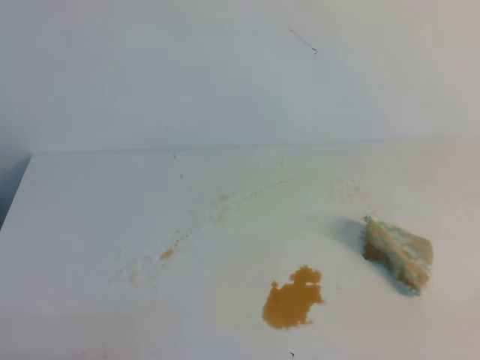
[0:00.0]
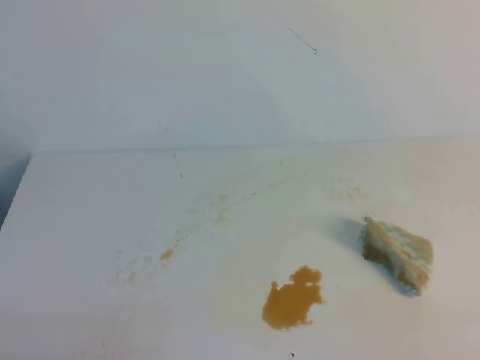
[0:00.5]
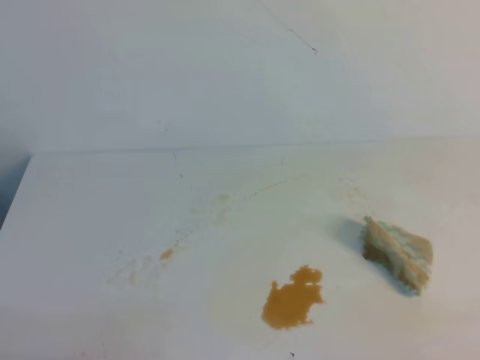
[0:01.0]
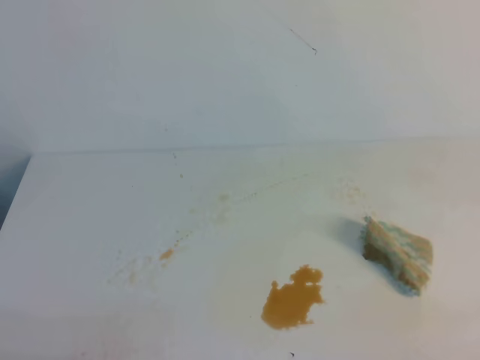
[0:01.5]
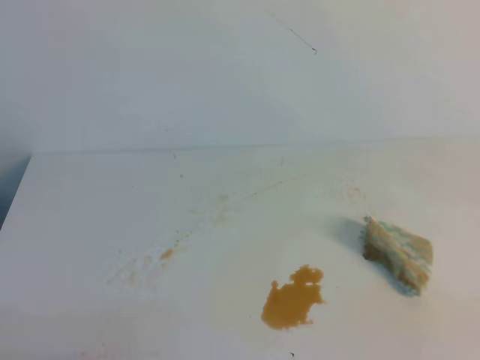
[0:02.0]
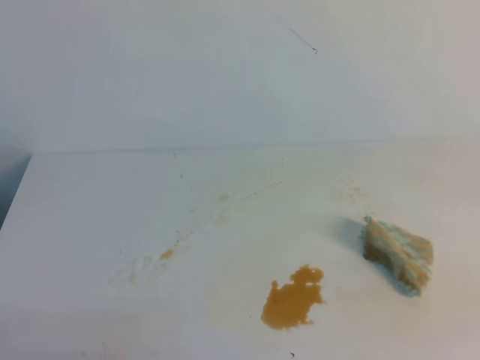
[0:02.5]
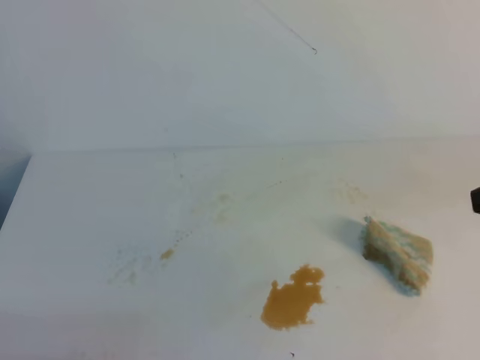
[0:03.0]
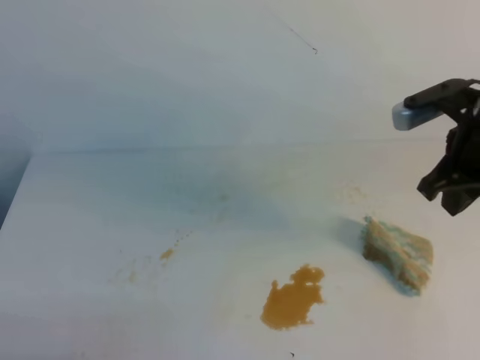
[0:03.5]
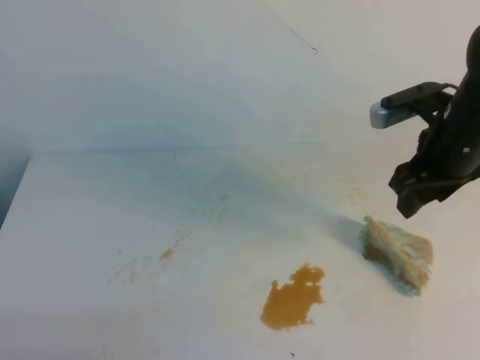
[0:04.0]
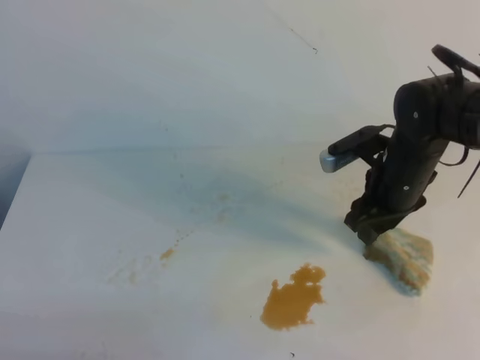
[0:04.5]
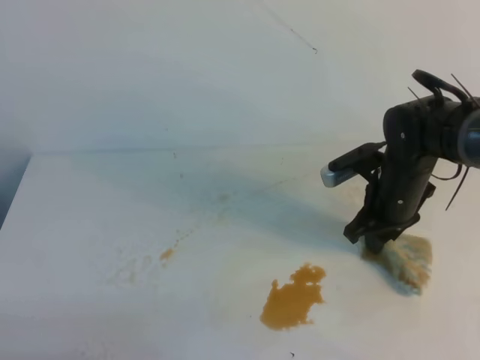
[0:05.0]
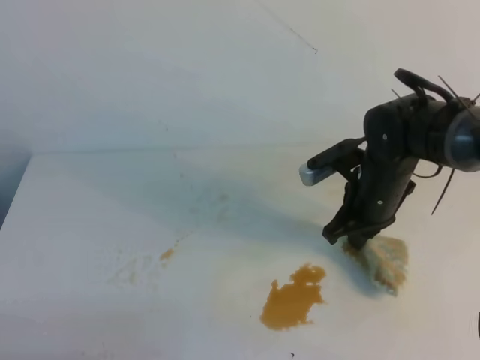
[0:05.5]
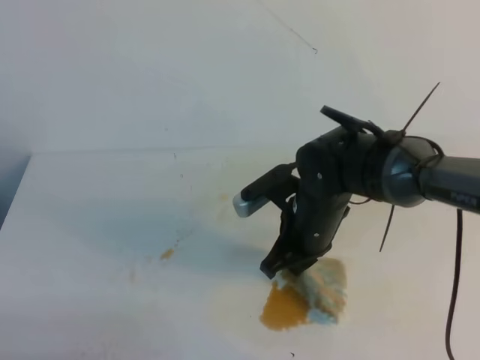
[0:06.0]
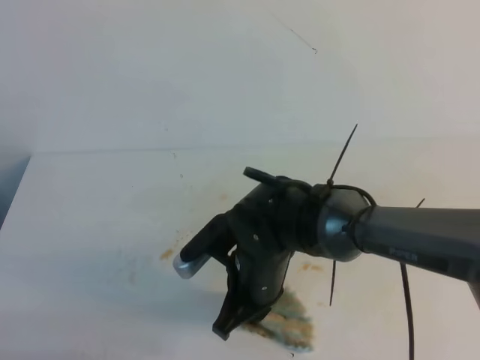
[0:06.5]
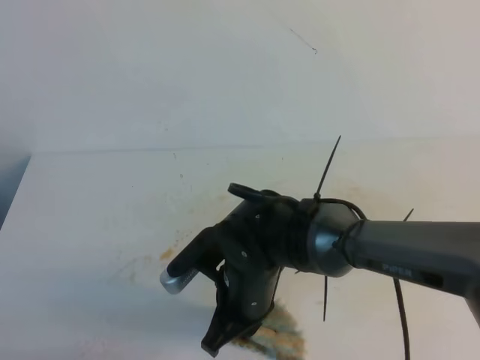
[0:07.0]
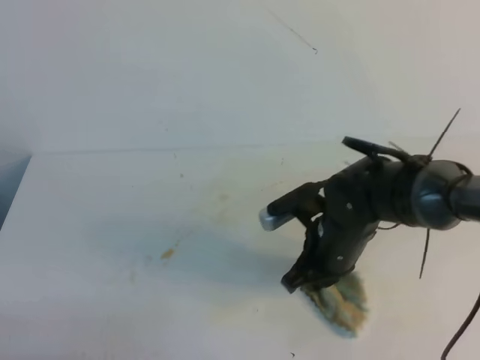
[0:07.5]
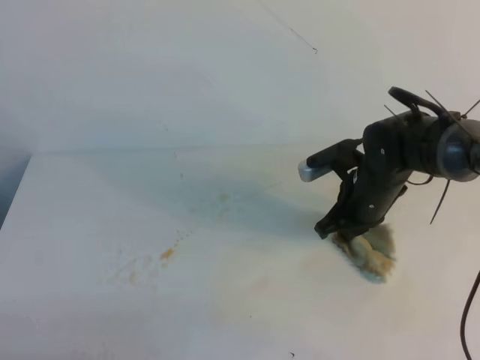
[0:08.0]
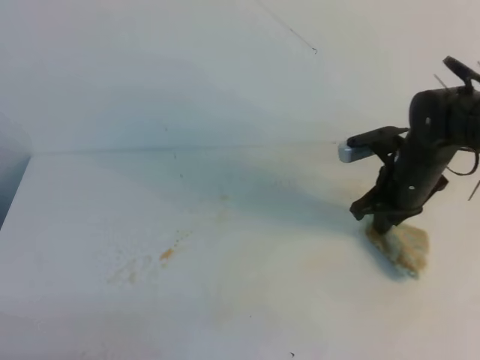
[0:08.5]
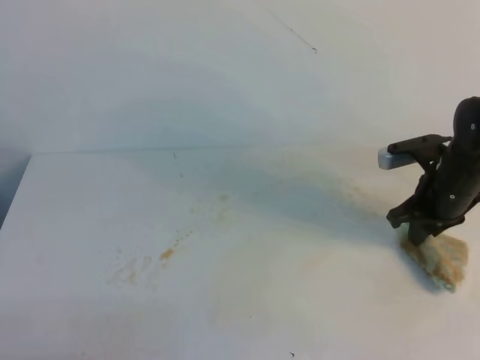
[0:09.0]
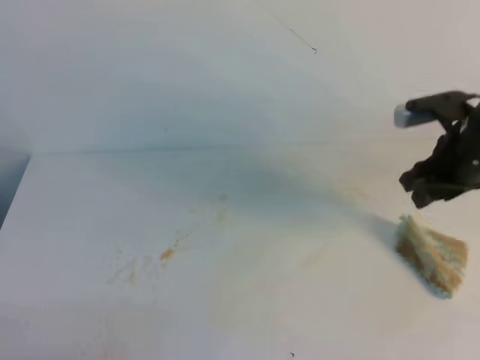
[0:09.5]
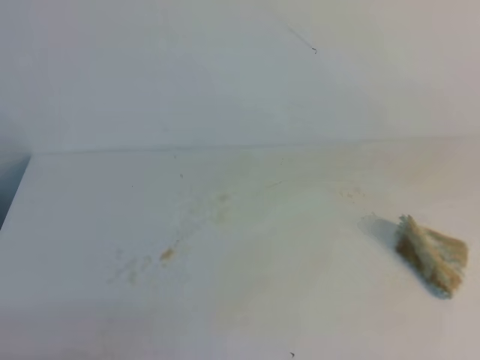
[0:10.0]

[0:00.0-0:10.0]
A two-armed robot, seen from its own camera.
0:02.0 to 0:04.0: The right gripper travels forward by approximately 30 cm, and opens.
0:04.0 to 0:06.0: The right gripper goes some 15 cm to the left and downward, and closes up.
0:06.0 to 0:08.0: The right gripper goes approximately 5 cm to the right.
0:08.0 to 0:10.0: The right gripper goes approximately 35 cm upward, backward and to the right, and opens, then closes again.

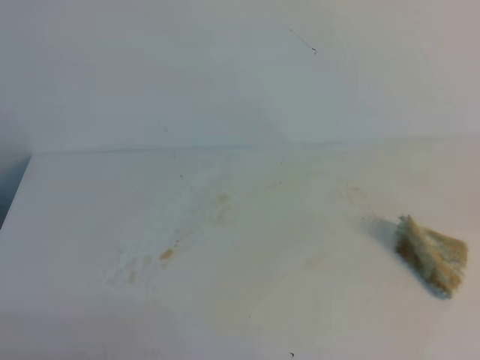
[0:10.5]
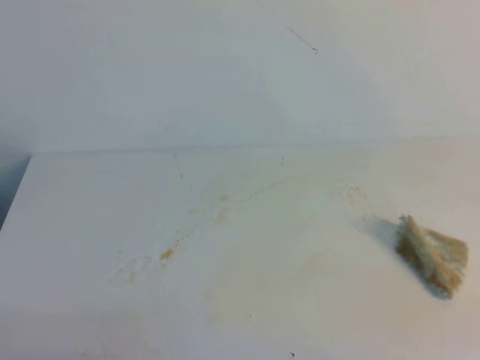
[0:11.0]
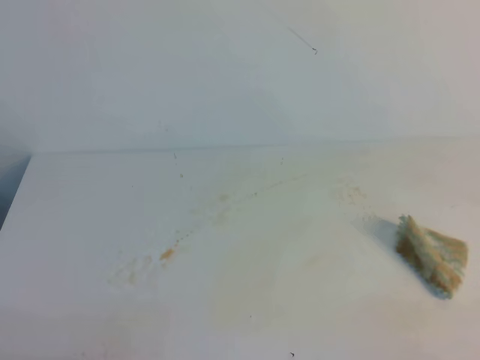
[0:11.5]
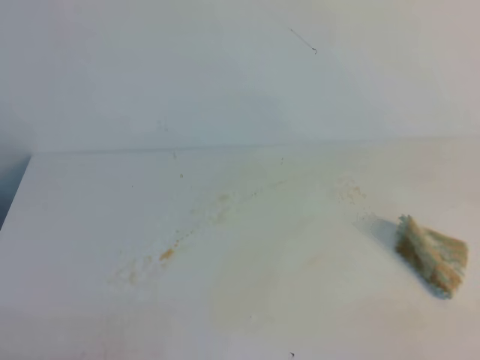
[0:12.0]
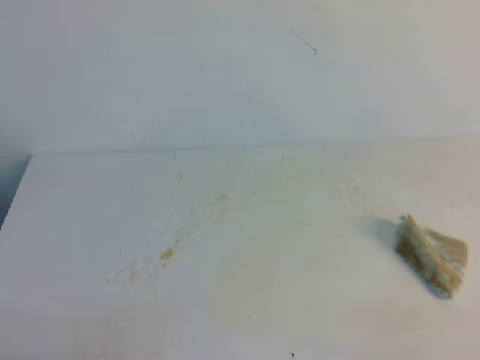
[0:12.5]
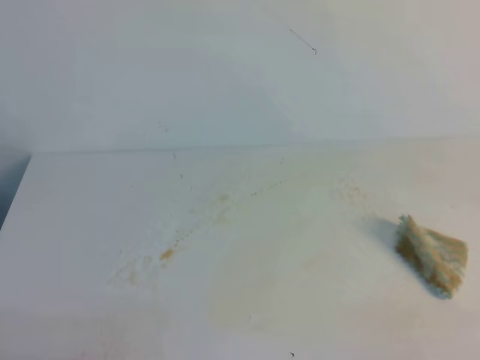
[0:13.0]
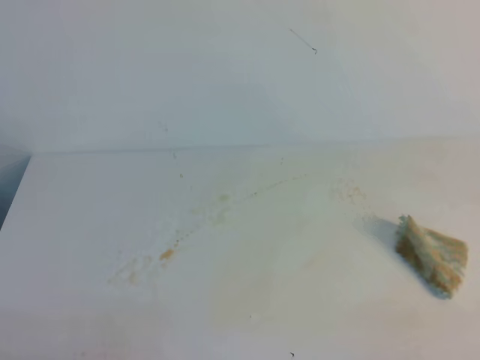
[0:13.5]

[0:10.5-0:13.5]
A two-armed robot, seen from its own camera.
0:12.0 to 0:13.5: Both grippers stay put.

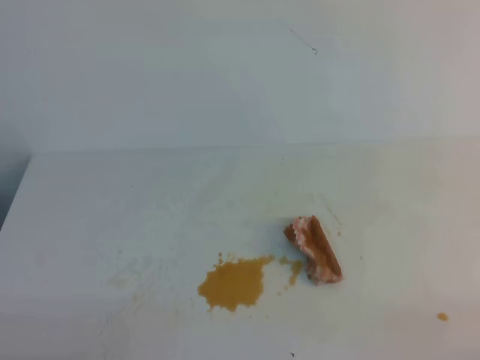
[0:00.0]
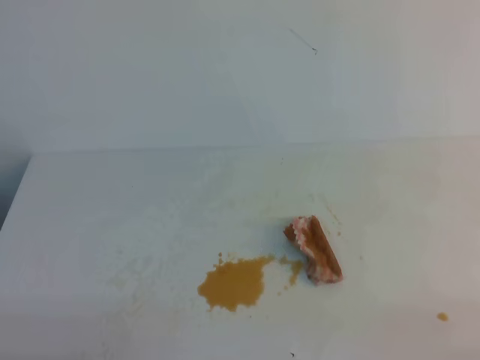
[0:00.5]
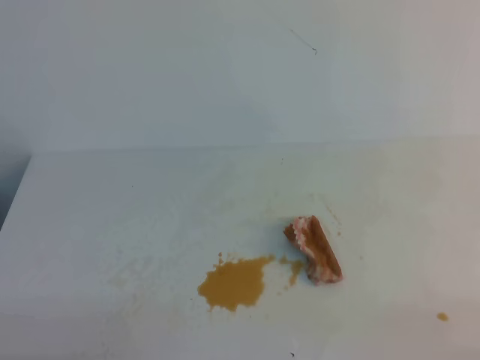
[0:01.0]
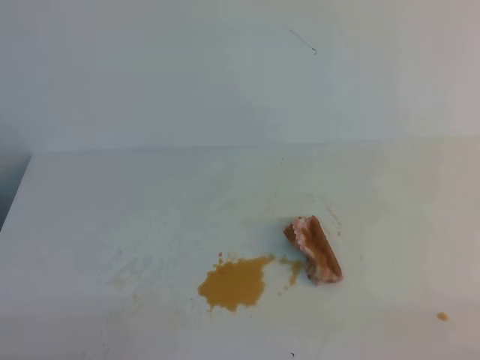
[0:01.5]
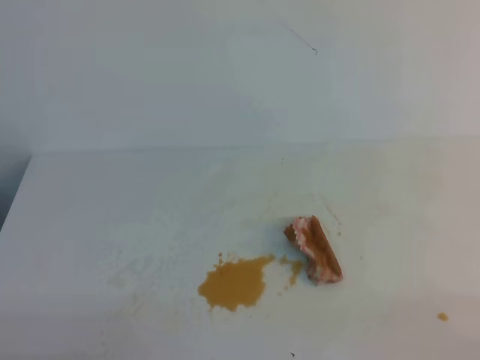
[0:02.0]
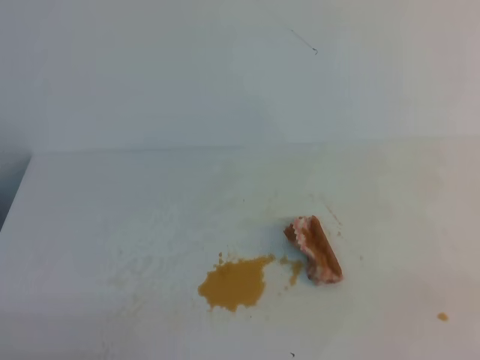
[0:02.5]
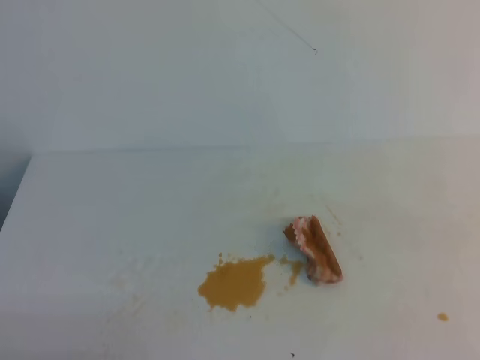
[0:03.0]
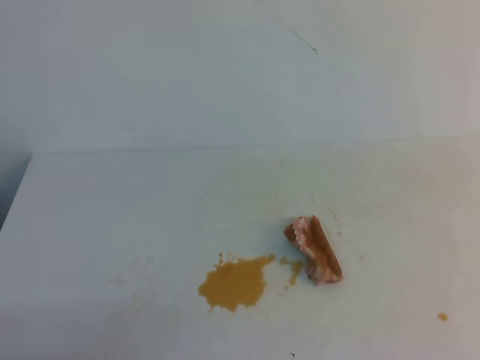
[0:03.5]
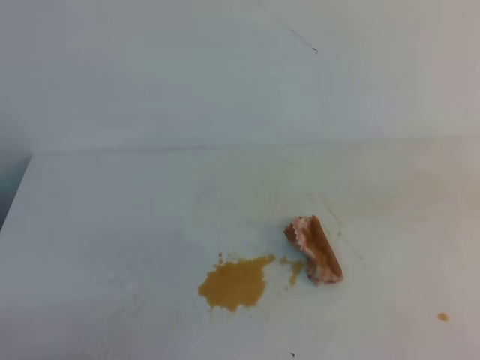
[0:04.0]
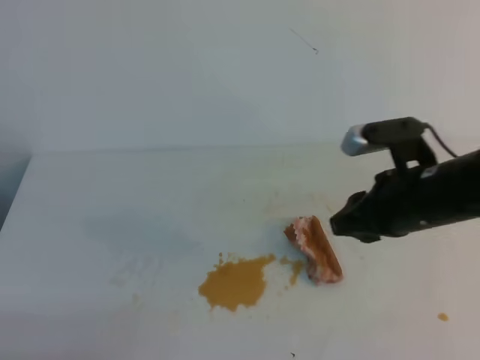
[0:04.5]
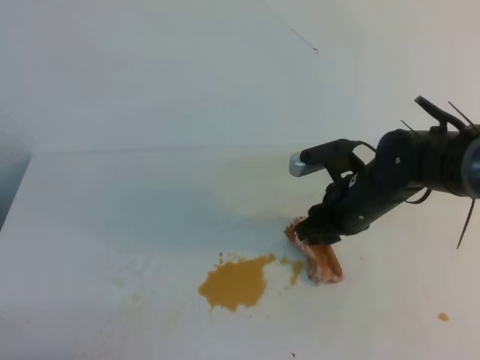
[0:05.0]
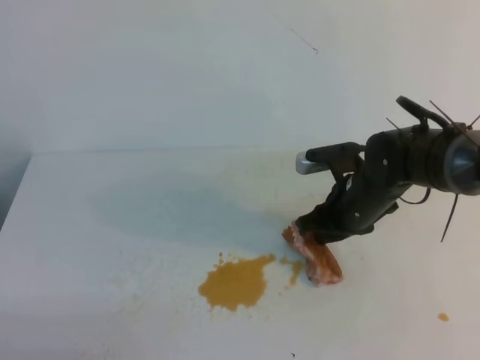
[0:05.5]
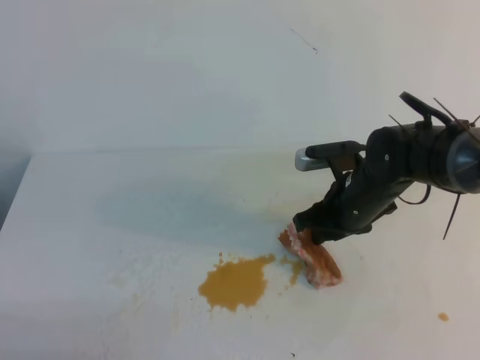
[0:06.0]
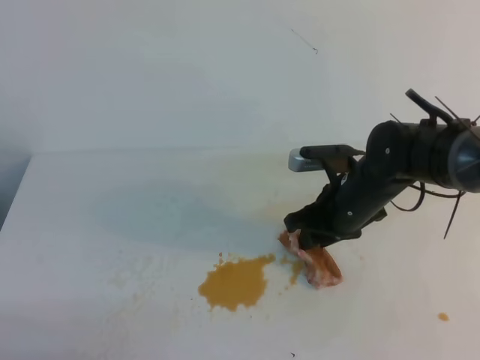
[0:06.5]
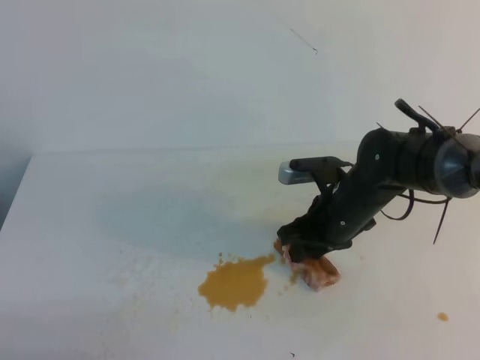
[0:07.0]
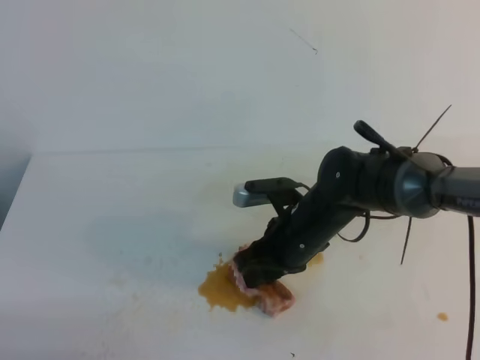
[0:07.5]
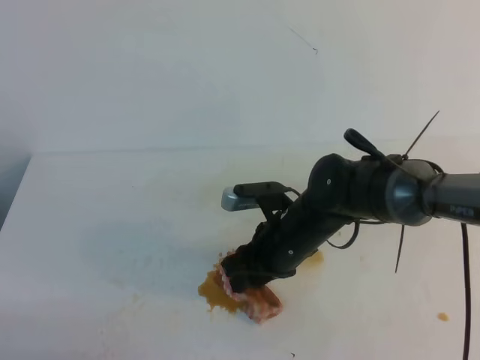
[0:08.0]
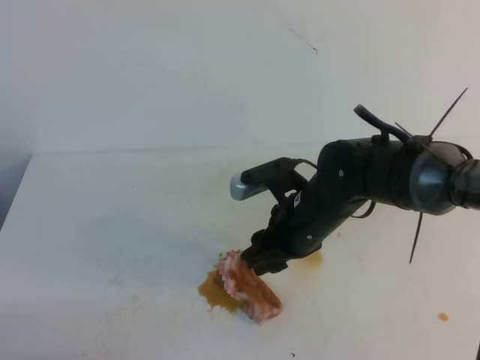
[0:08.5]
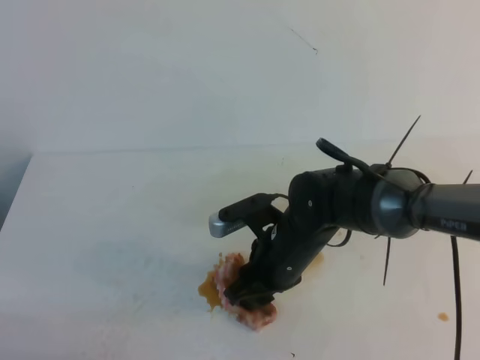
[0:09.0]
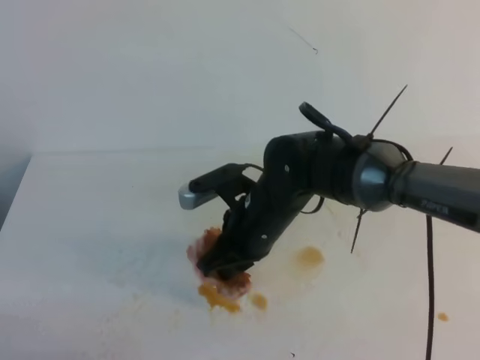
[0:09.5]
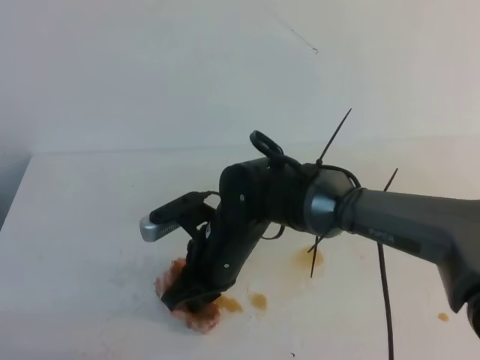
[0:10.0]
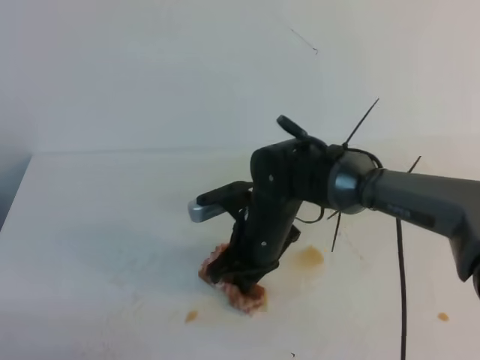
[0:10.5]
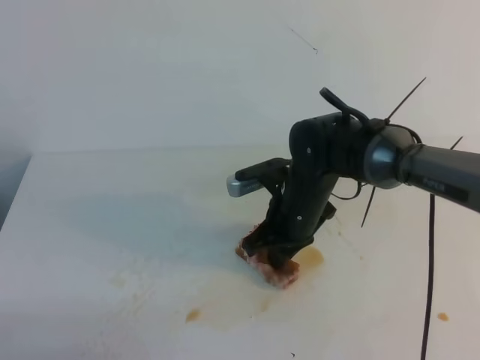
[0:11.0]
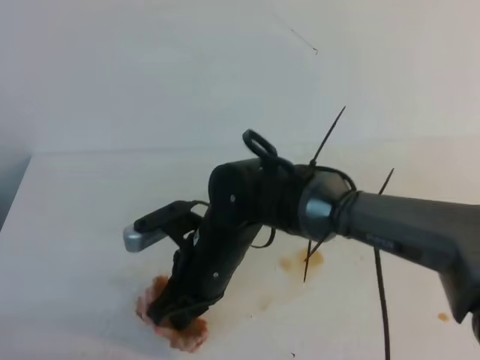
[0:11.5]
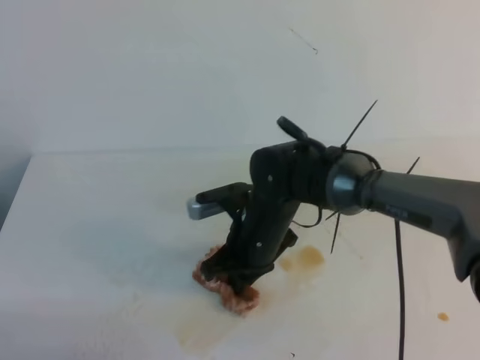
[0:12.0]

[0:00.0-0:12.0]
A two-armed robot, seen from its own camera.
0:04.0 to 0:06.0: The right gripper goes roughly 25 cm forward, to the left and downward, and opens its fingers.
0:06.0 to 0:08.0: The right gripper moves to the left, roughly 10 cm.
0:08.0 to 0:10.0: The right gripper is displaced to the left by some 10 cm, and closes.

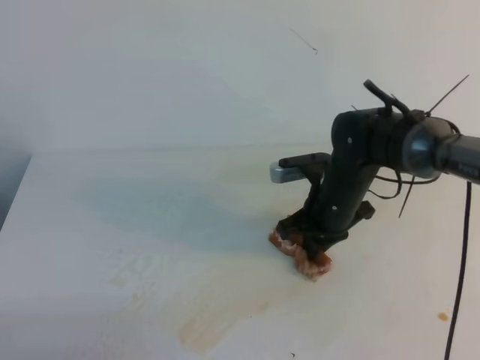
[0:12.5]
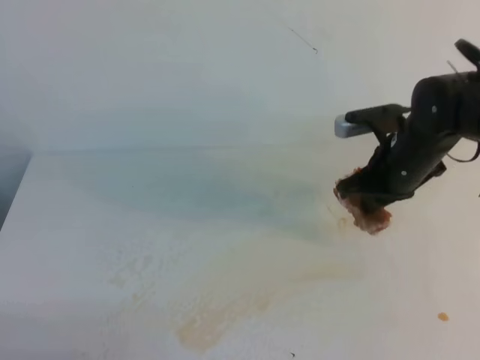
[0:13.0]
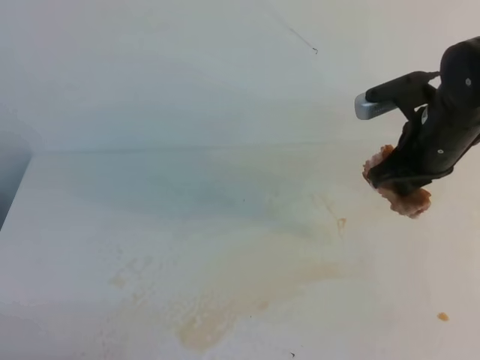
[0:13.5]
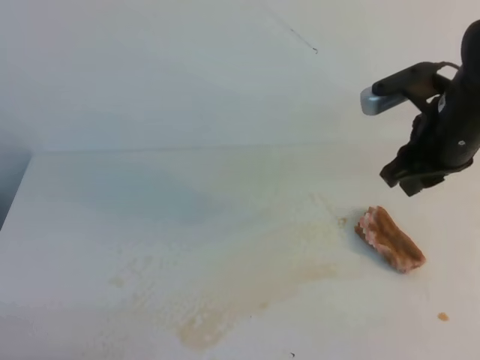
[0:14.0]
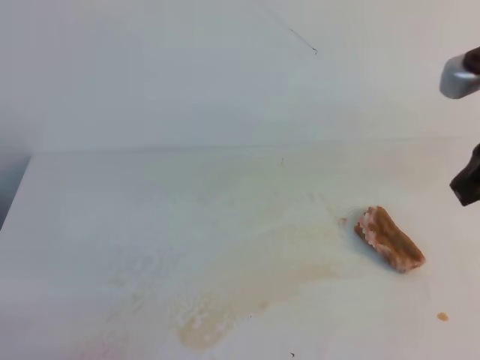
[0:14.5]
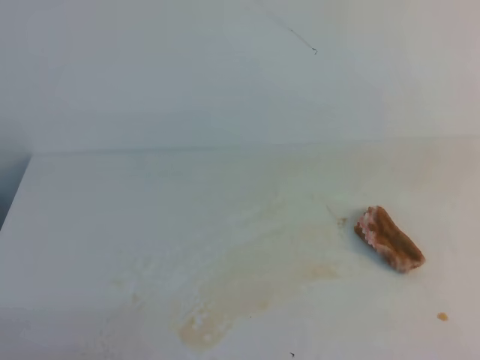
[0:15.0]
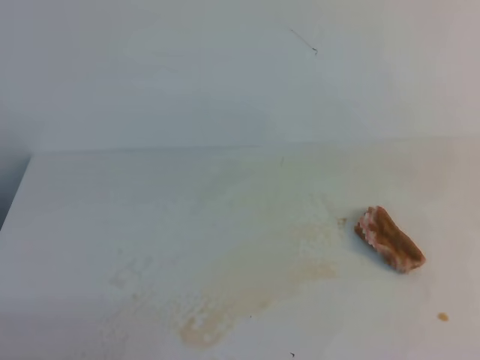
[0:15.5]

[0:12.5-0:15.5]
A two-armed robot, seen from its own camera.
0:12.5 to 0:14.0: The right gripper shifts approximately 20 cm upward and to the right, and opens its fingers.
0:14.0 to 0:15.5: The right gripper moves backward and upward, roughly 25 cm, and closes.
